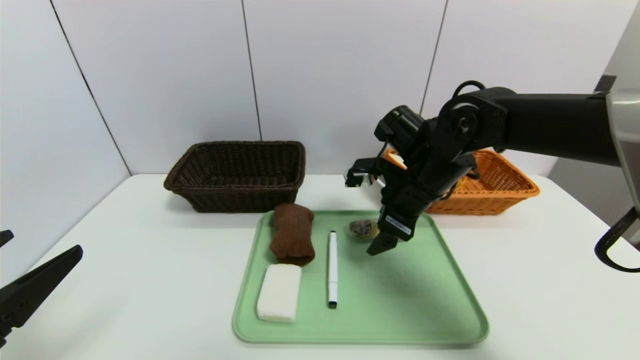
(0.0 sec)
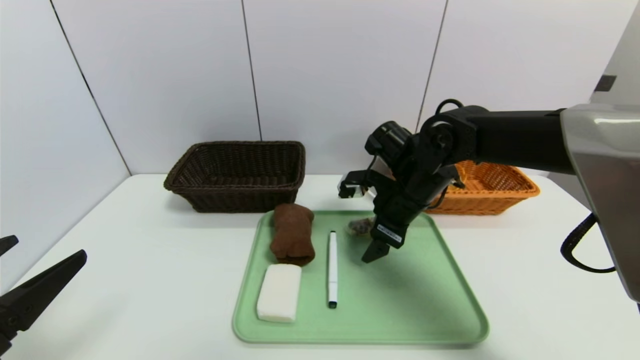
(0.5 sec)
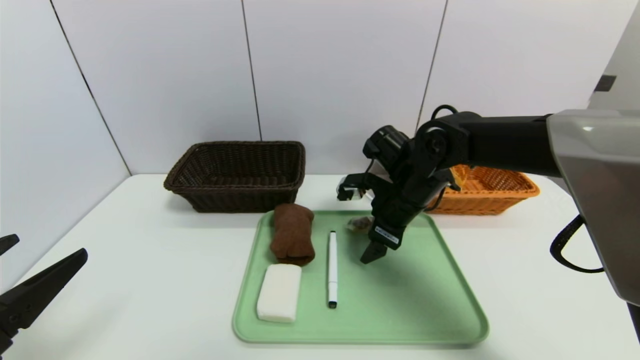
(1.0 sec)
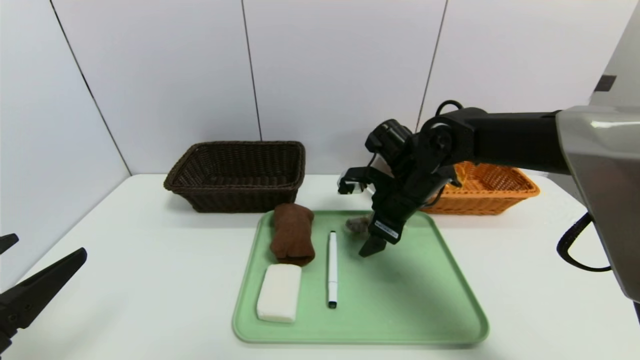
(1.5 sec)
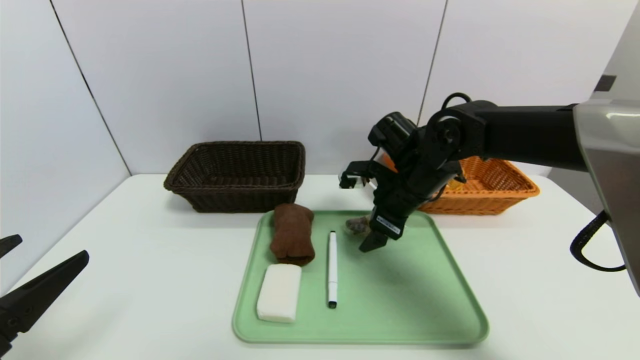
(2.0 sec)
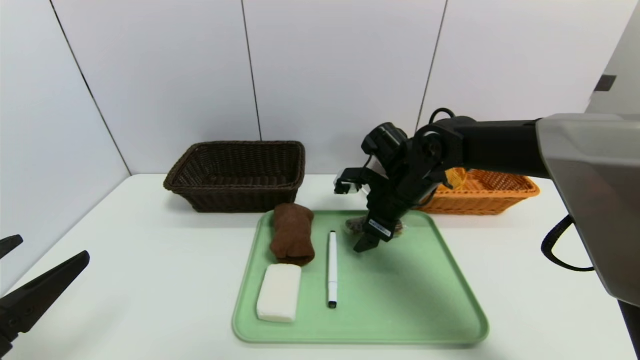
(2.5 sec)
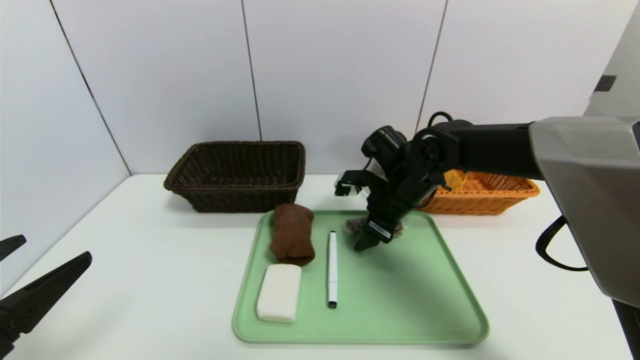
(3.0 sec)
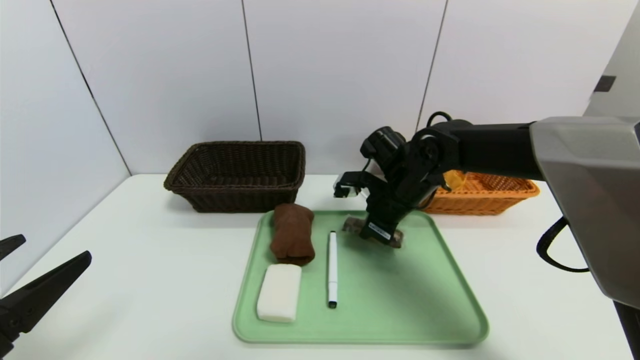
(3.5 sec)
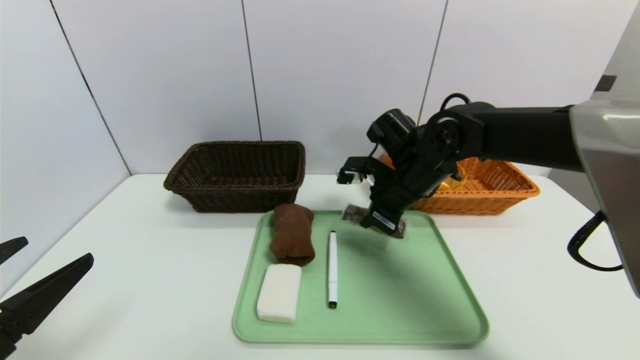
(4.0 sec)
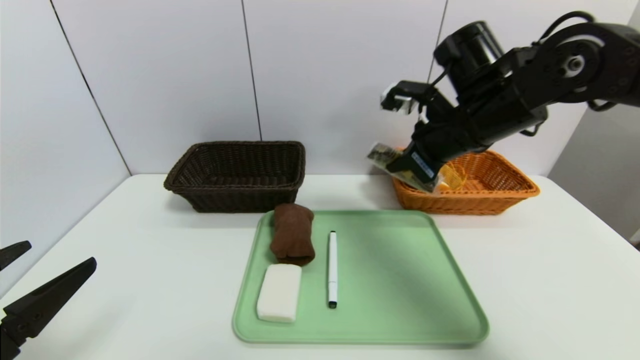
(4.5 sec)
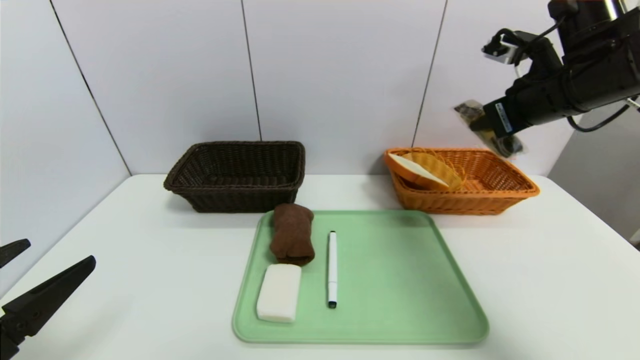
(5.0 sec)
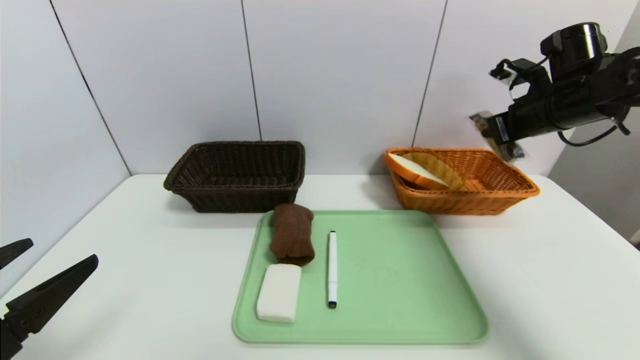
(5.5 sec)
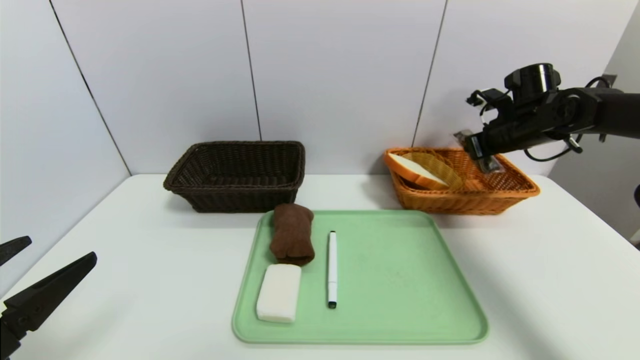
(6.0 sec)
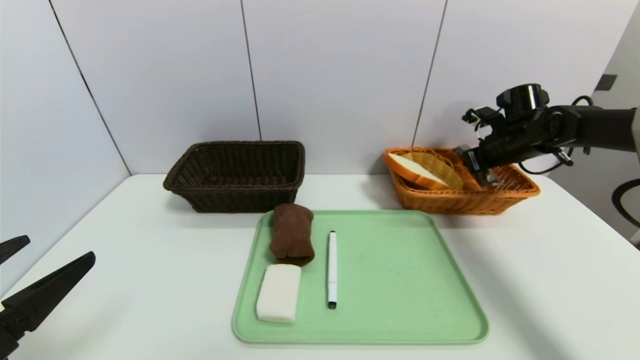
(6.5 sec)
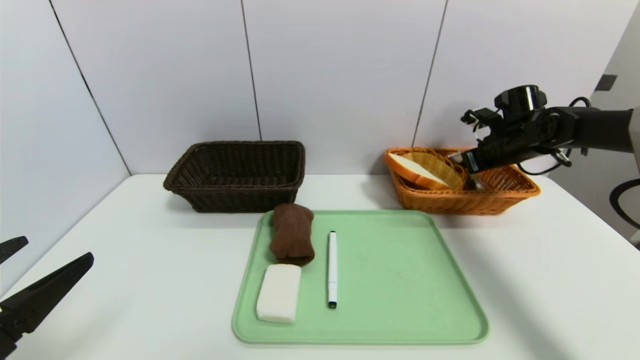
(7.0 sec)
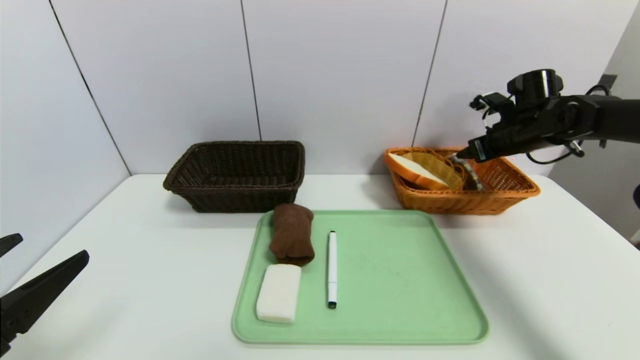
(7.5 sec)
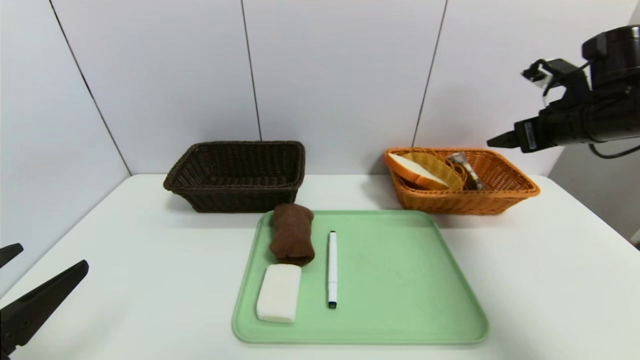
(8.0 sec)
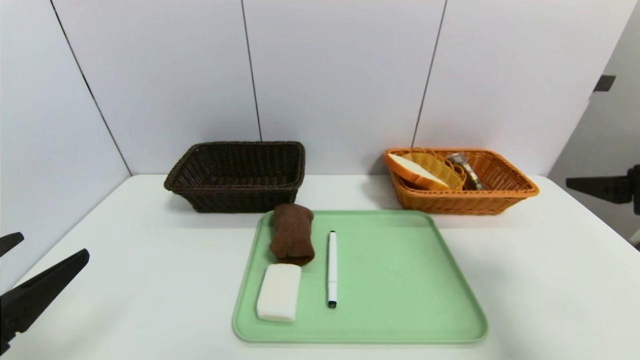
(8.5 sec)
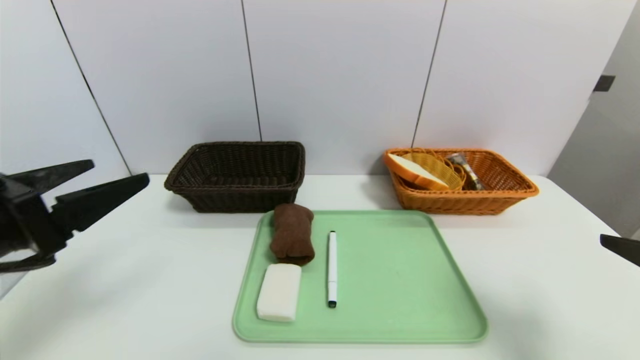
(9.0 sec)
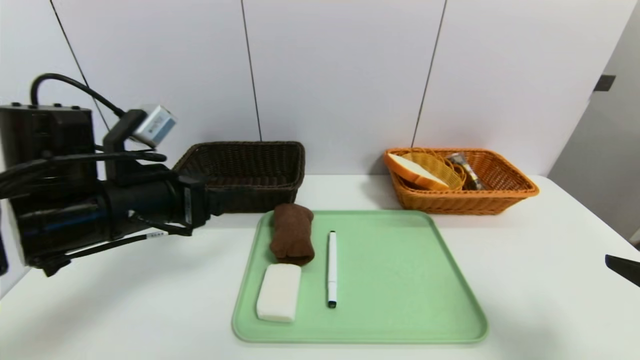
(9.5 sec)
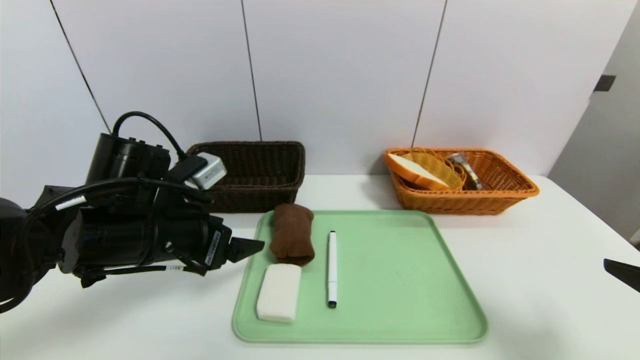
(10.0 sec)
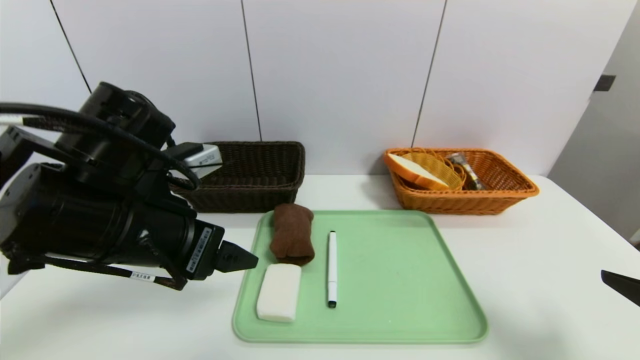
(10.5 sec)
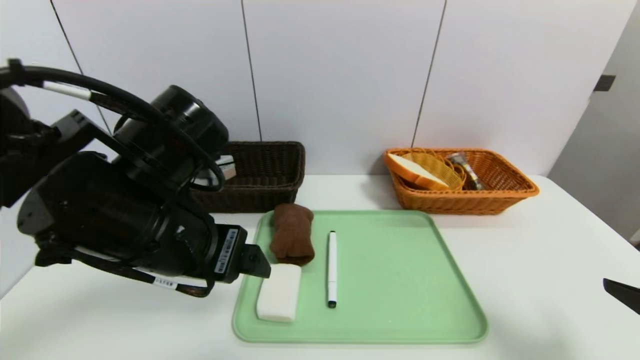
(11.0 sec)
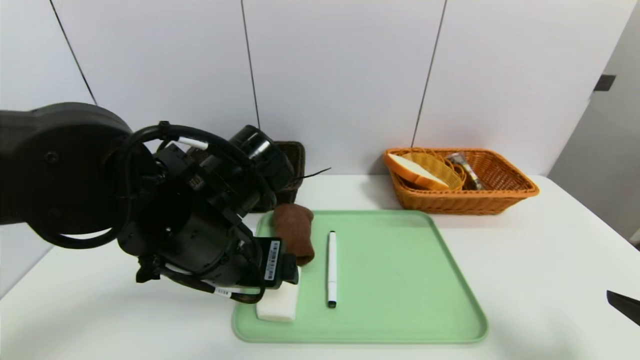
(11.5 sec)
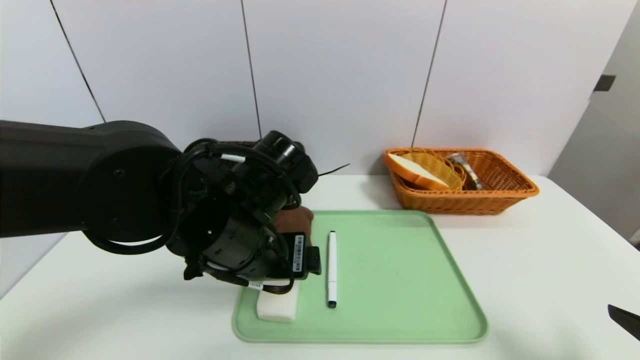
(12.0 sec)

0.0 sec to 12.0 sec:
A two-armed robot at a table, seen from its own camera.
Task of the whole recording: place the food in the right basket with the right gripper, and place the non food items in the left basket with the left gripper.
Step, 0.0 sec to 7.0 sec: Grasp the chocolate and put it in the right basket.
0.0 sec to 2.0 sec: The grippers move only a little.
2.0 sec to 4.0 sec: The right gripper closes up.
4.0 sec to 6.0 sec: The right gripper heads to the right, covering roughly 20 cm.
6.0 sec to 8.0 sec: The right gripper travels backward and upward by approximately 10 cm, and opens its fingers.
8.0 sec to 10.0 sec: The right gripper goes about 25 cm backward; the left gripper shifts about 20 cm forward and to the right.
10.0 sec to 12.0 sec: The left gripper goes about 10 cm to the right.

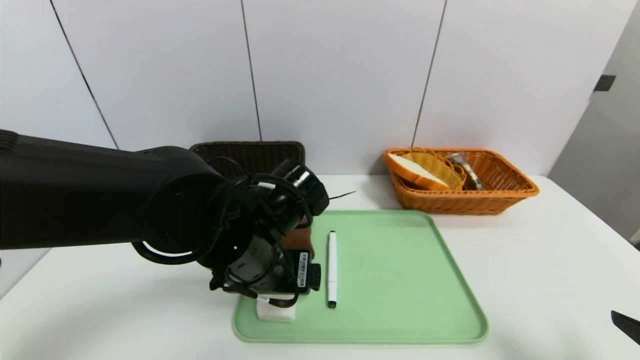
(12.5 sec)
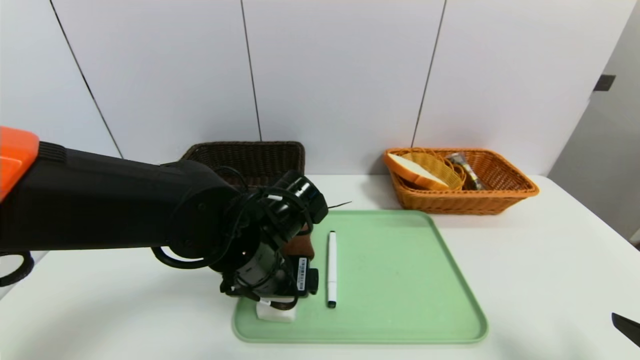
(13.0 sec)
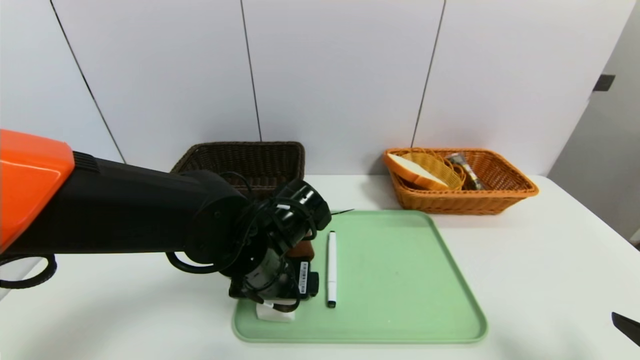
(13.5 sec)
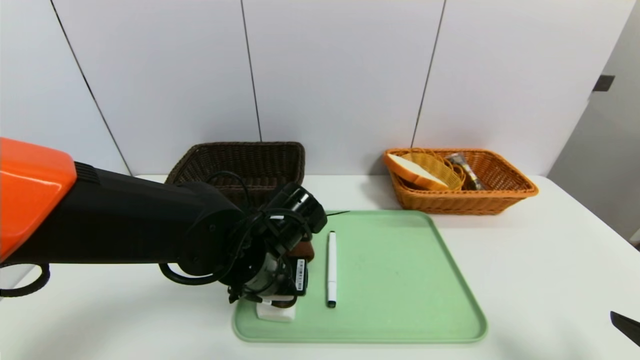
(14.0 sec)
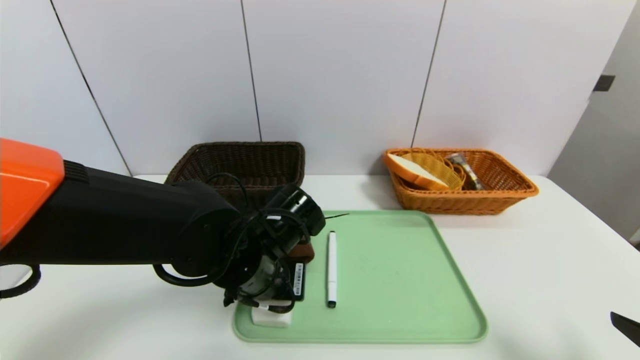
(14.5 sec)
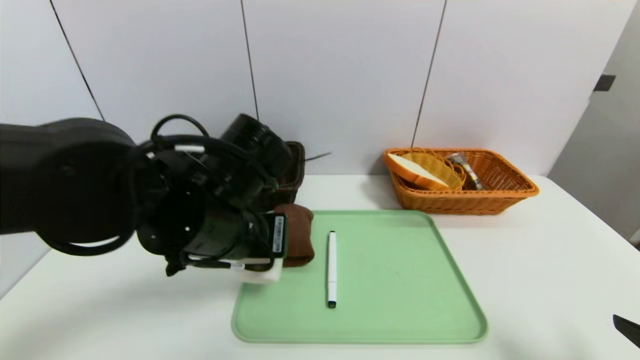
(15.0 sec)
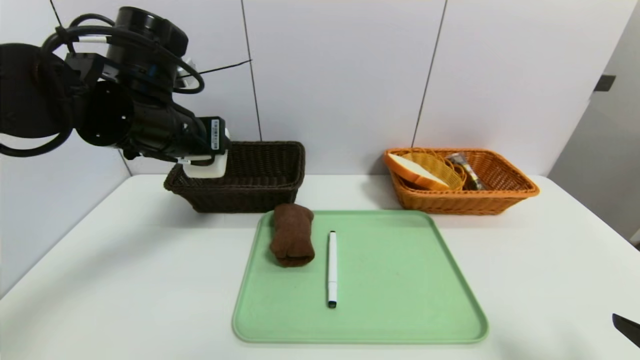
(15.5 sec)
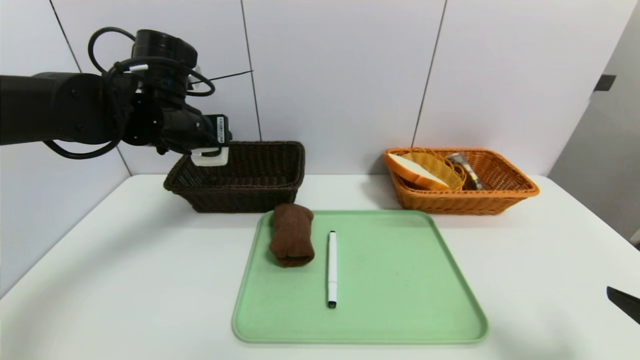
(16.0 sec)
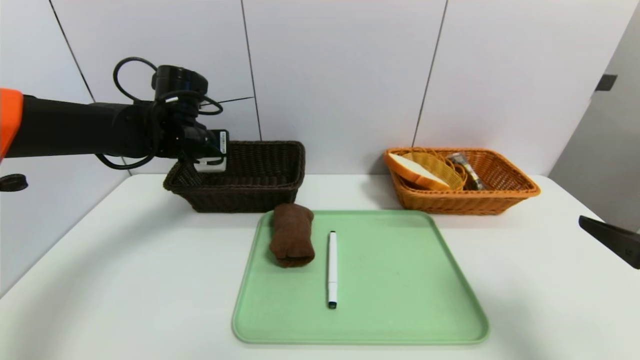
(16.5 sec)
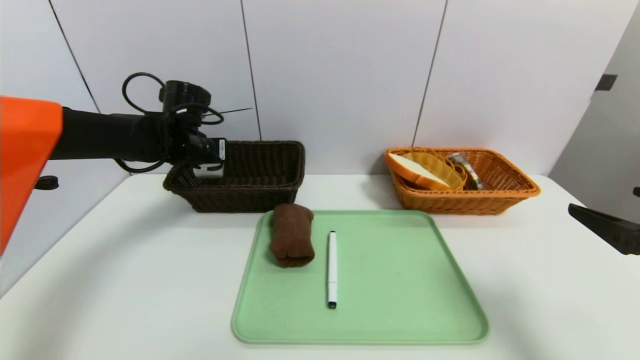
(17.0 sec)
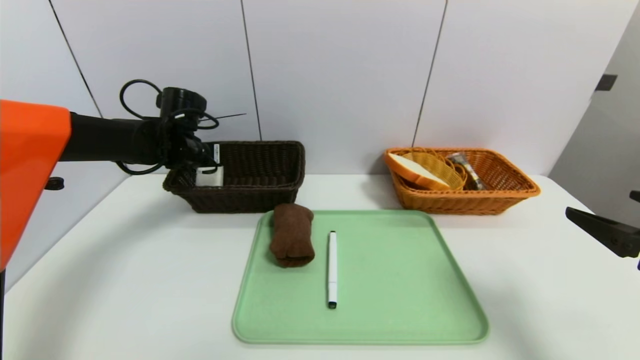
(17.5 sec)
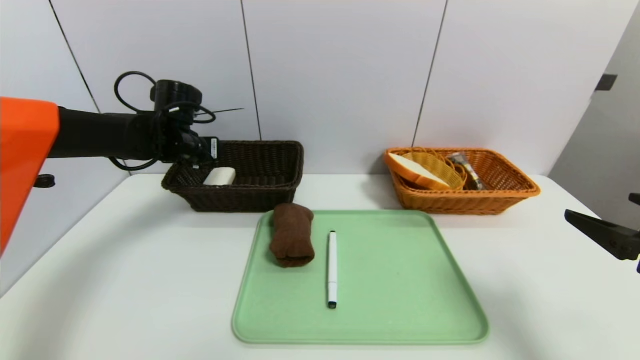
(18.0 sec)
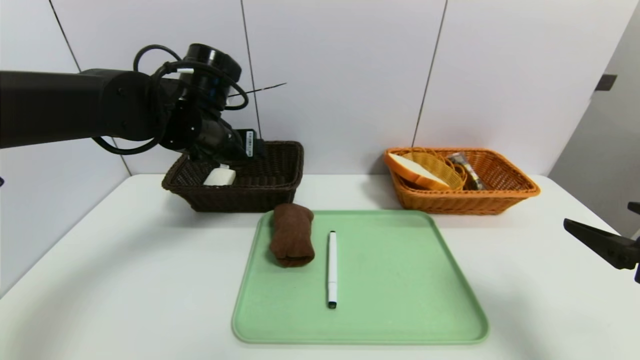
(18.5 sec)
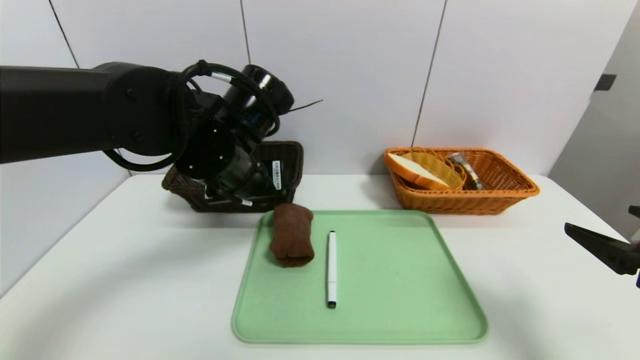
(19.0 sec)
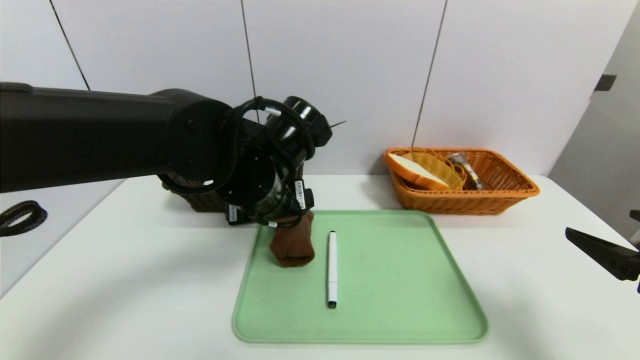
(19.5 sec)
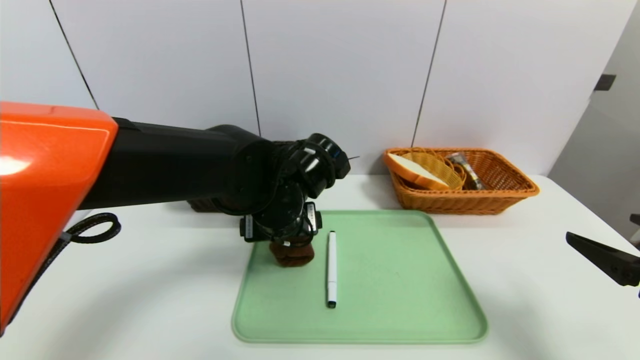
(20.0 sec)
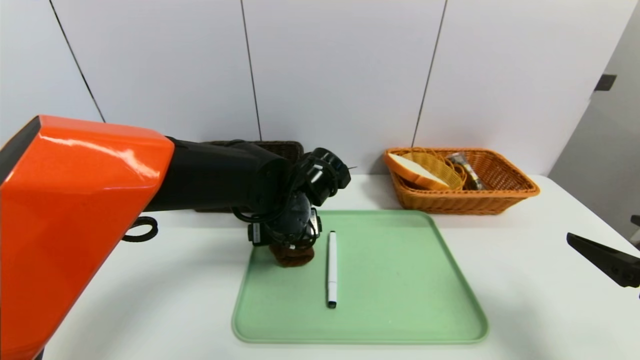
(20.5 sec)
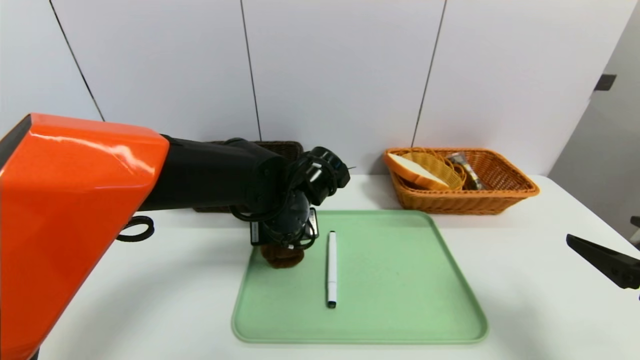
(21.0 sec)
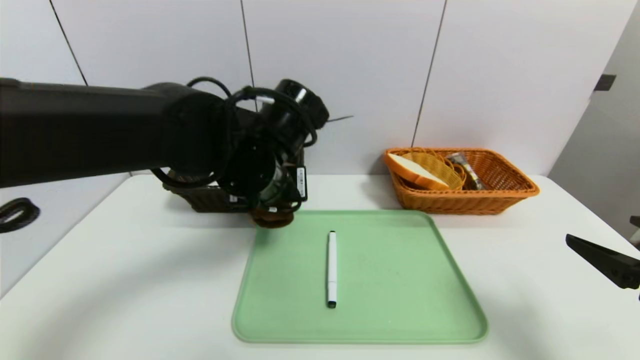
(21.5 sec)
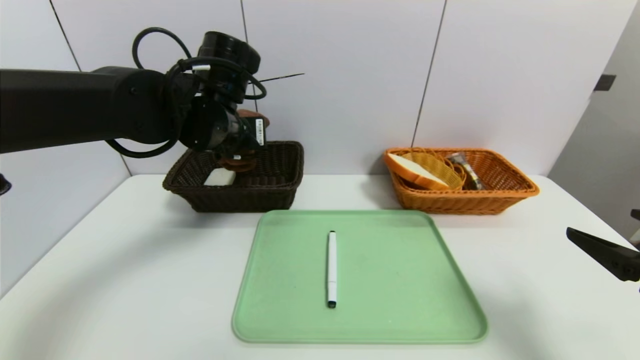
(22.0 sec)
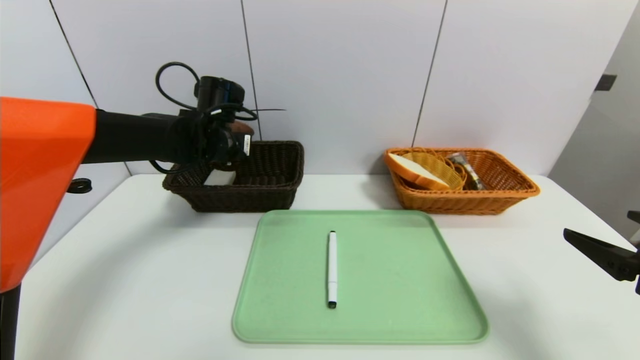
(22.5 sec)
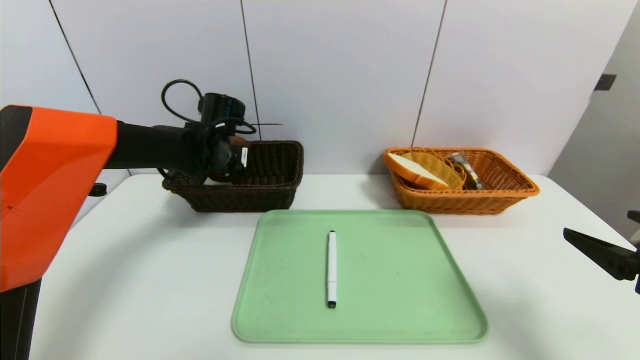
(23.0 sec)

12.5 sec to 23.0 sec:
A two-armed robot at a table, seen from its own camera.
Task of the whole recording: place the food in the right basket with the right gripper, and place the non food items in the left basket with the left gripper.
Step, 12.5 sec to 18.0 sec: Grasp the soap and put it in the left basket.
12.5 sec to 14.5 sec: The left gripper closes.
14.5 sec to 16.5 sec: The right gripper moves forward, some 5 cm, while the left gripper shifts about 25 cm forward, to the left and upward.
16.5 sec to 19.0 sec: The left gripper travels backward and to the right by roughly 15 cm, and opens up.
19.0 sec to 21.0 sec: The left gripper goes approximately 10 cm downward and to the right, and closes up.
21.0 sec to 23.0 sec: The left gripper is displaced to the left and forward by roughly 20 cm.
